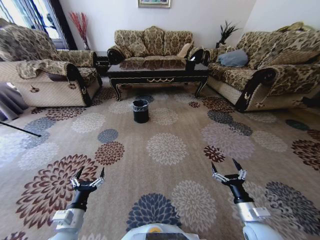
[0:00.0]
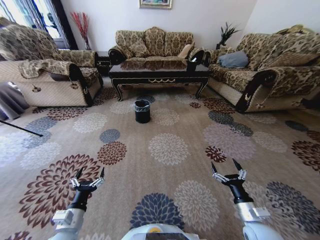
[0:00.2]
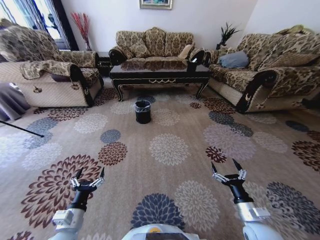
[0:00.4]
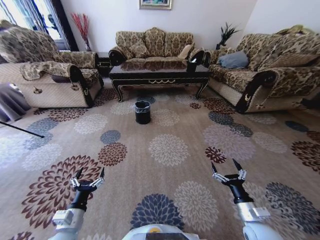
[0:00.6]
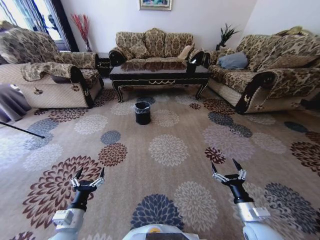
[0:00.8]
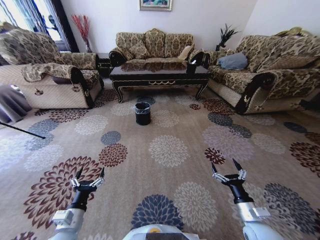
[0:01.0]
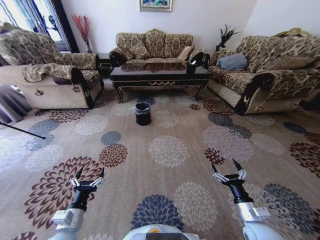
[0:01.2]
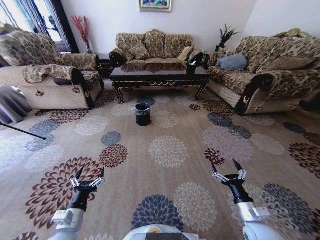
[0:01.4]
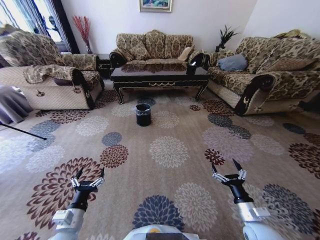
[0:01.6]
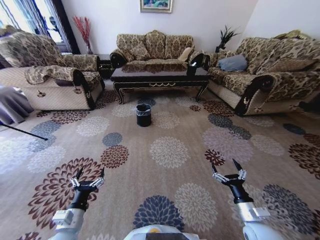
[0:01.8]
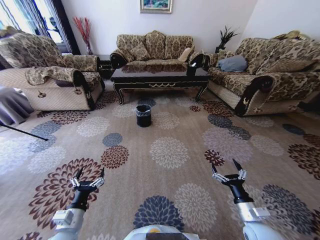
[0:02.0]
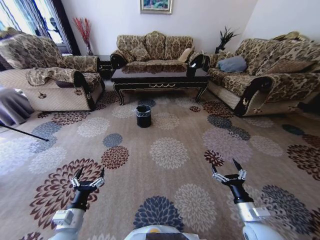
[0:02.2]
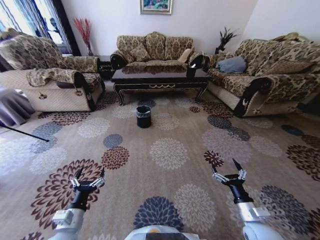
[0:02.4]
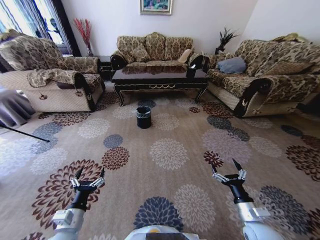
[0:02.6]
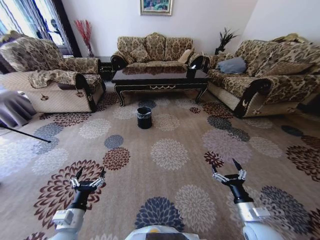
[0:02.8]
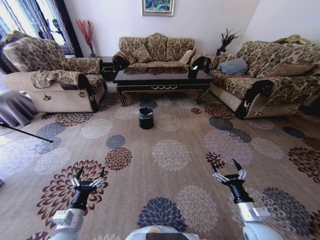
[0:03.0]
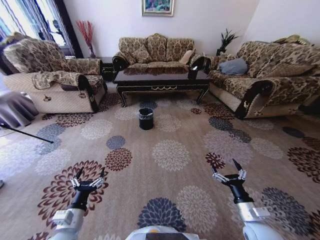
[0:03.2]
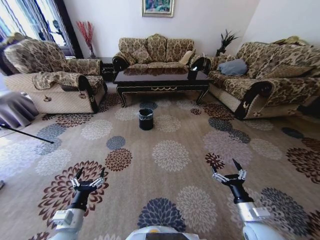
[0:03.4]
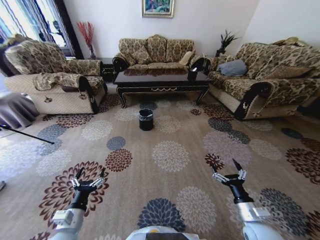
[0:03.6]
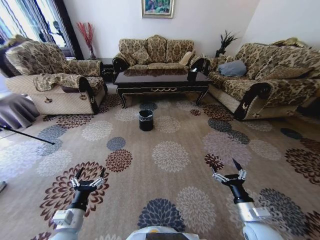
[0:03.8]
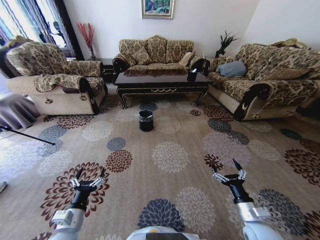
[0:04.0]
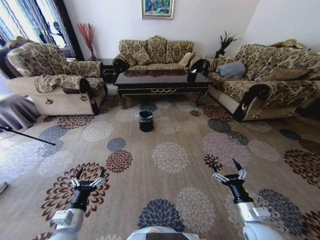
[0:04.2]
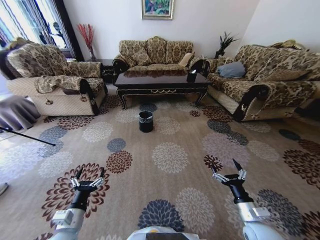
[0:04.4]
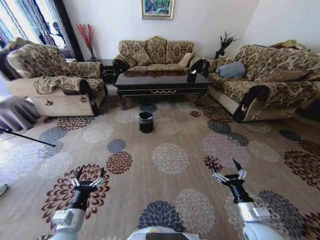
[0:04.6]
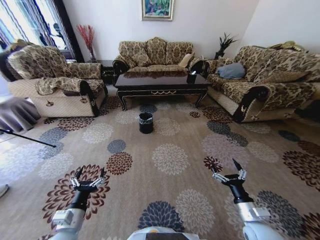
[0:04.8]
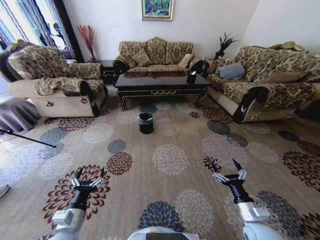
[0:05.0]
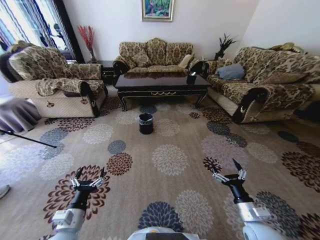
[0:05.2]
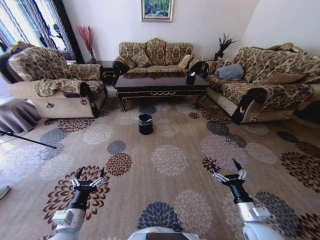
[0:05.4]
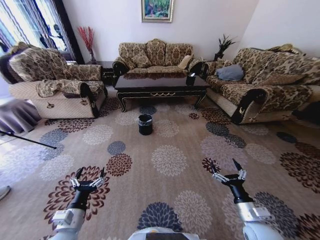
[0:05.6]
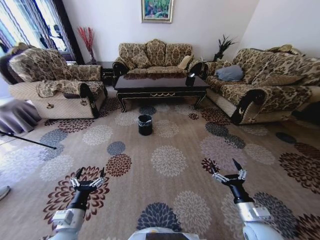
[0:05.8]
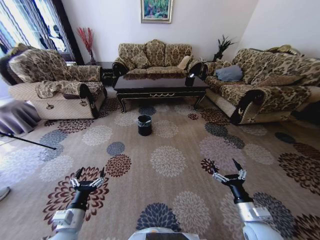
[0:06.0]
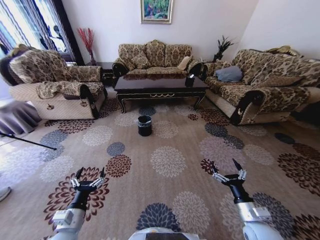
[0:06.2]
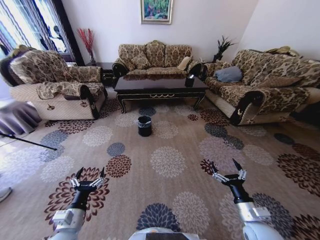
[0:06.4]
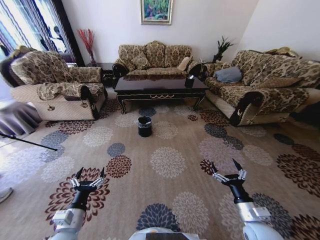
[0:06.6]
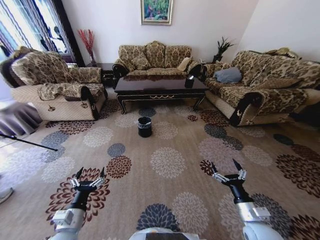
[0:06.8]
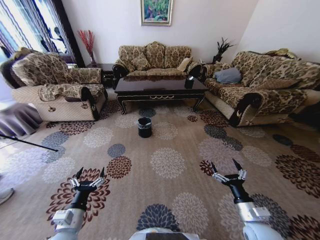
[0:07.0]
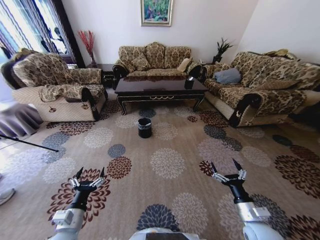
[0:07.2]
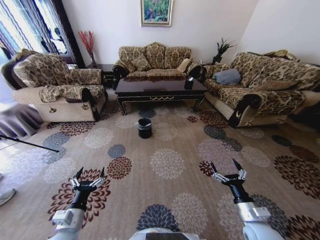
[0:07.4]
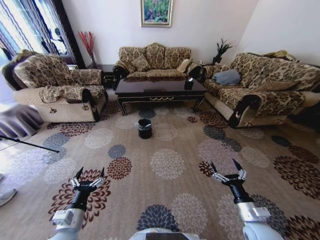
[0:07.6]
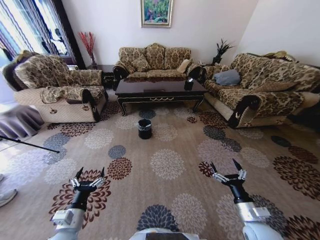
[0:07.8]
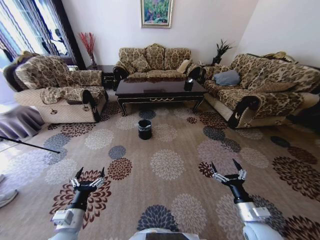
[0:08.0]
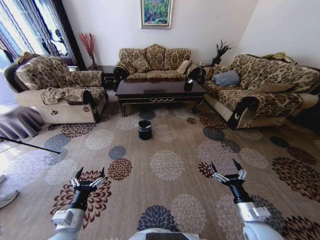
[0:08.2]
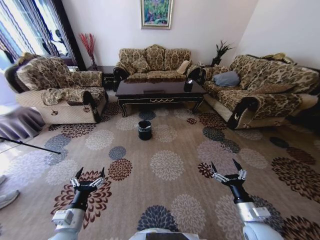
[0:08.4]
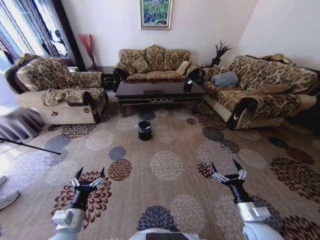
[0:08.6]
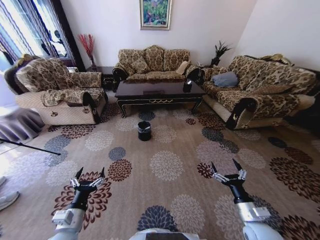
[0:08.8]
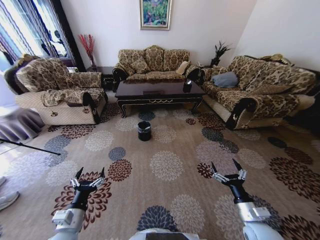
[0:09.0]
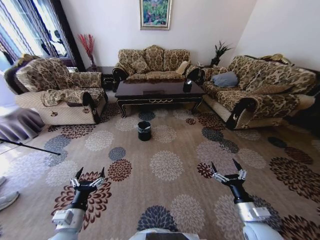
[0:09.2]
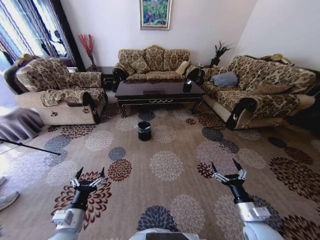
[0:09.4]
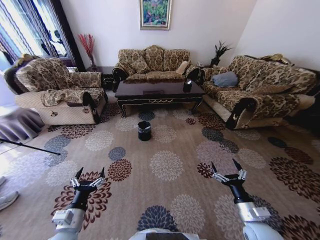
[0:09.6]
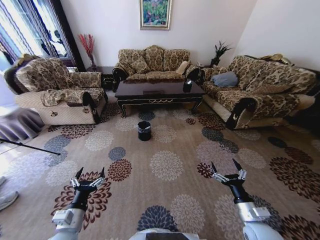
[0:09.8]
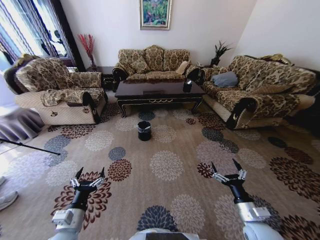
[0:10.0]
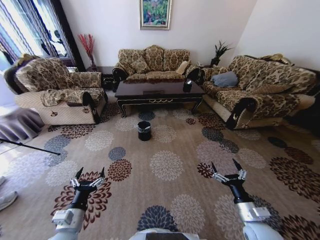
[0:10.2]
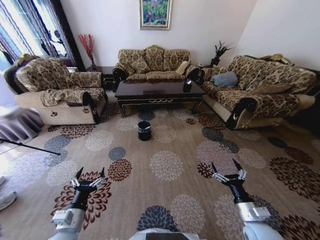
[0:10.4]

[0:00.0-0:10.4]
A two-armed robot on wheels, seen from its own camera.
Task of the whole recording: Move to the front of the table and pick up the trash from the floor, then place it into the trash bin.
0:09.0 to 0:10.4: Both grippers stay put.

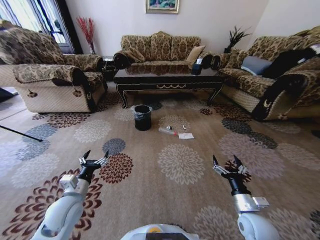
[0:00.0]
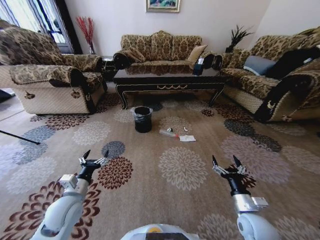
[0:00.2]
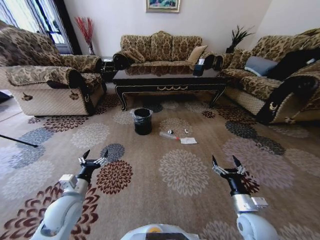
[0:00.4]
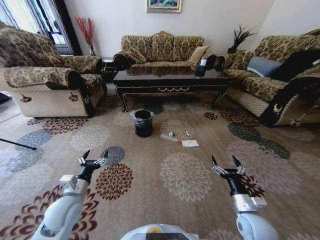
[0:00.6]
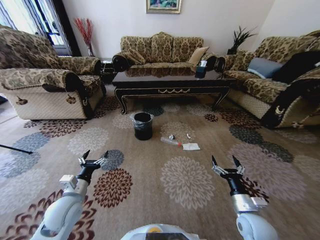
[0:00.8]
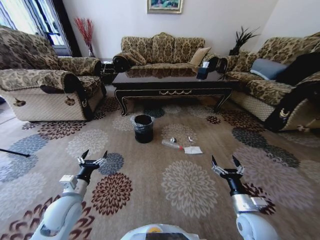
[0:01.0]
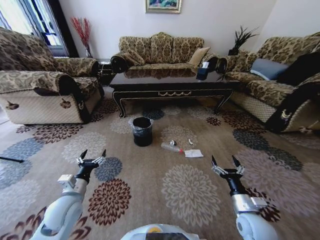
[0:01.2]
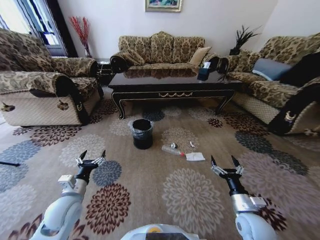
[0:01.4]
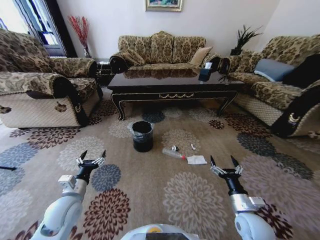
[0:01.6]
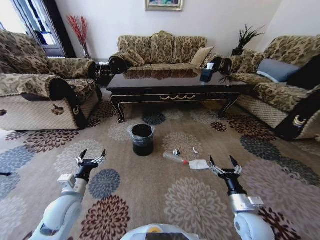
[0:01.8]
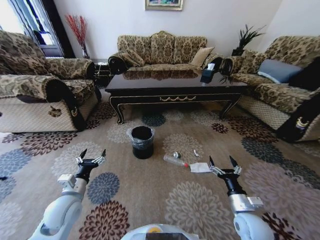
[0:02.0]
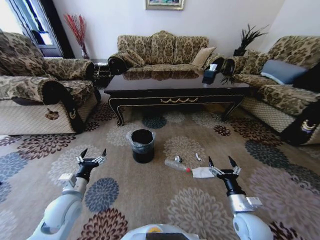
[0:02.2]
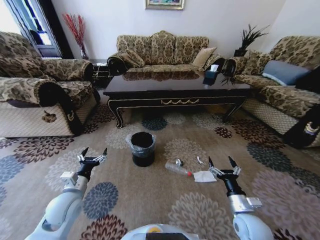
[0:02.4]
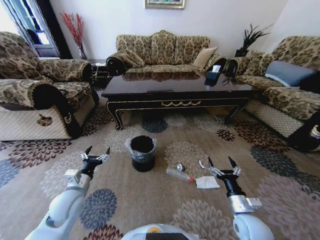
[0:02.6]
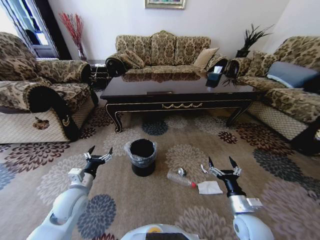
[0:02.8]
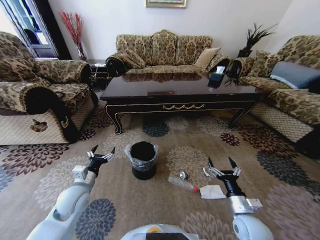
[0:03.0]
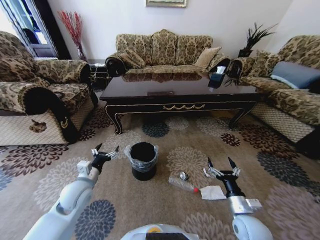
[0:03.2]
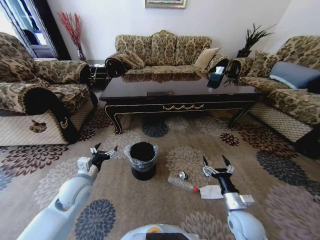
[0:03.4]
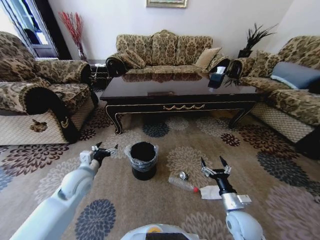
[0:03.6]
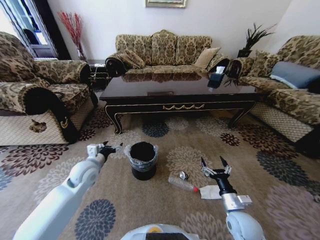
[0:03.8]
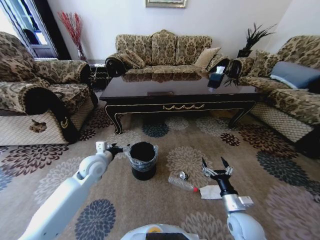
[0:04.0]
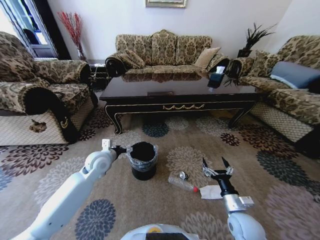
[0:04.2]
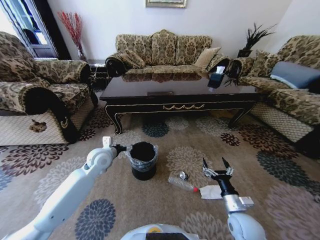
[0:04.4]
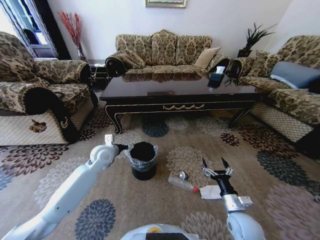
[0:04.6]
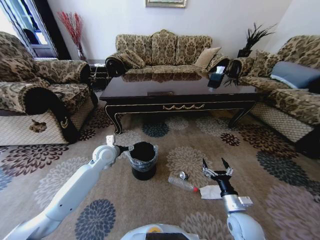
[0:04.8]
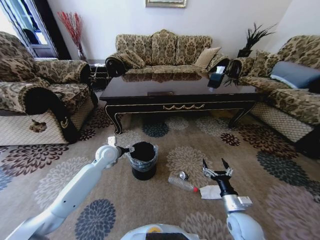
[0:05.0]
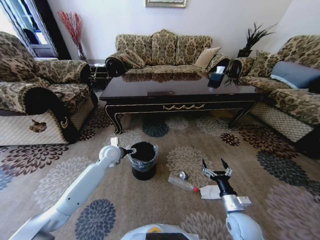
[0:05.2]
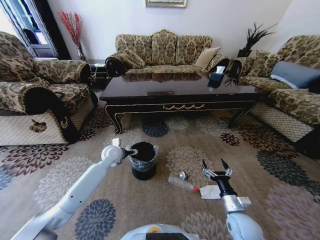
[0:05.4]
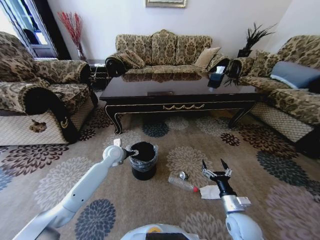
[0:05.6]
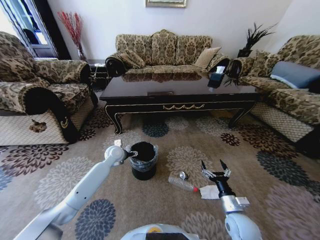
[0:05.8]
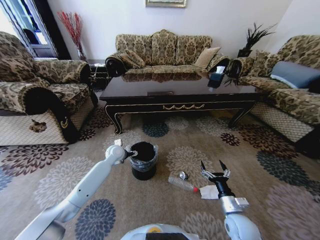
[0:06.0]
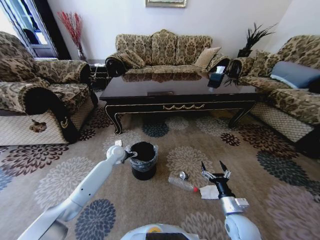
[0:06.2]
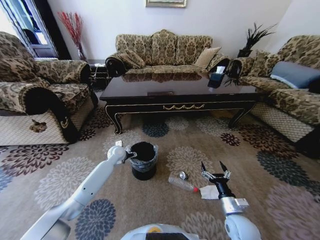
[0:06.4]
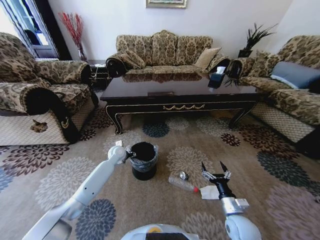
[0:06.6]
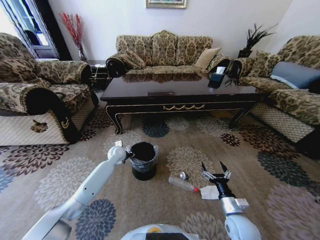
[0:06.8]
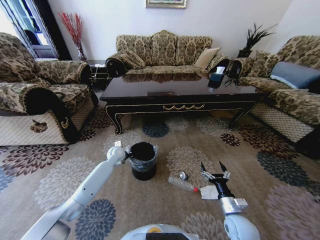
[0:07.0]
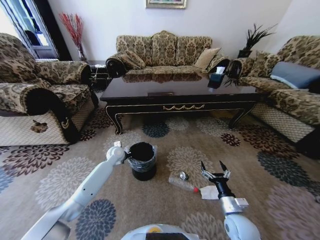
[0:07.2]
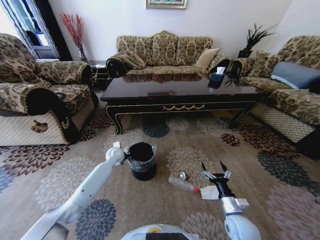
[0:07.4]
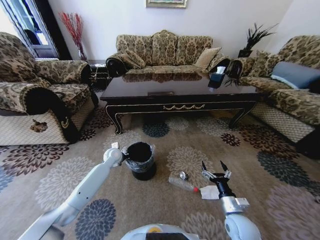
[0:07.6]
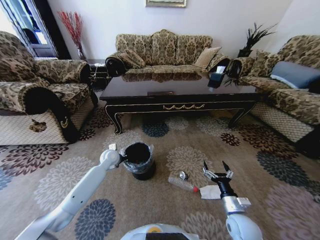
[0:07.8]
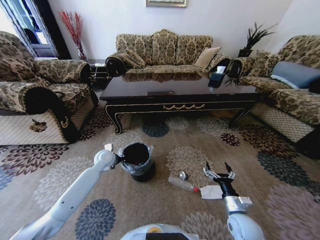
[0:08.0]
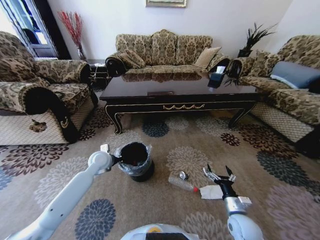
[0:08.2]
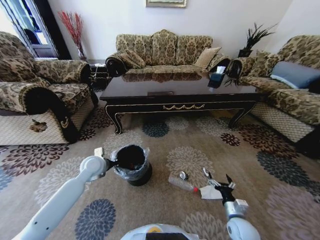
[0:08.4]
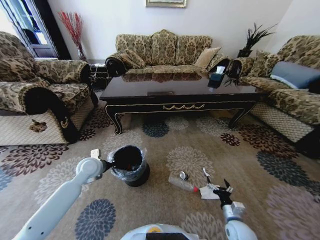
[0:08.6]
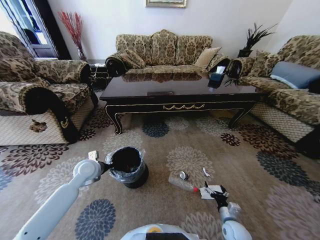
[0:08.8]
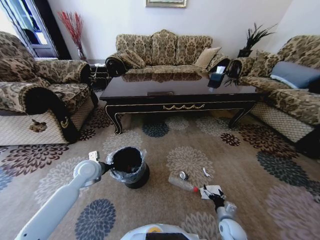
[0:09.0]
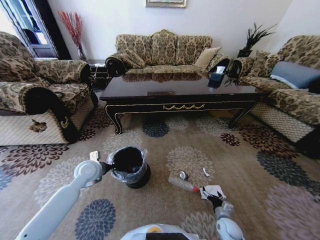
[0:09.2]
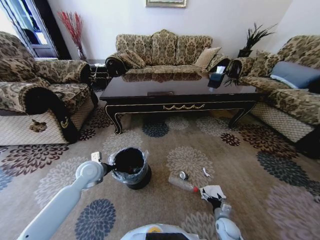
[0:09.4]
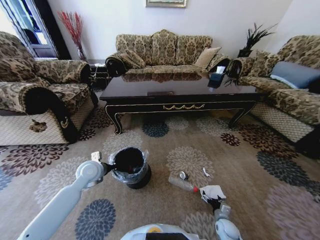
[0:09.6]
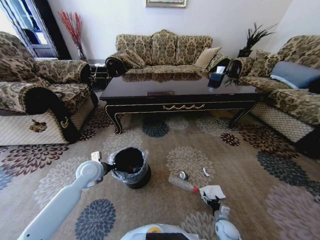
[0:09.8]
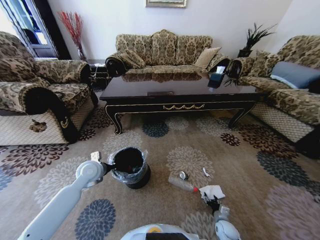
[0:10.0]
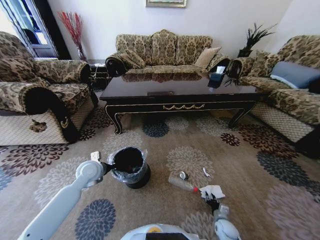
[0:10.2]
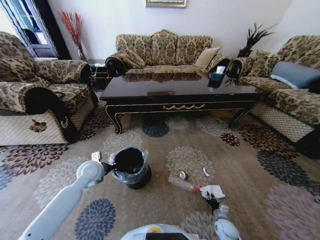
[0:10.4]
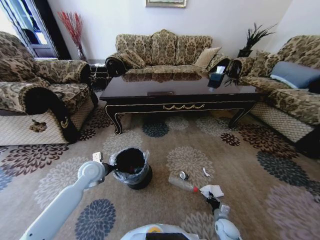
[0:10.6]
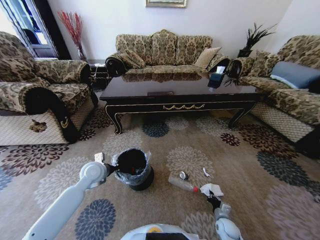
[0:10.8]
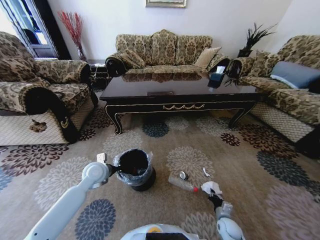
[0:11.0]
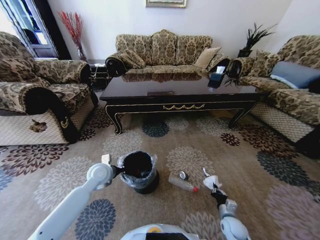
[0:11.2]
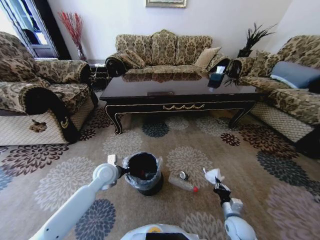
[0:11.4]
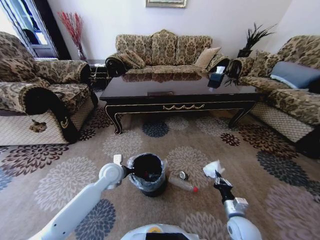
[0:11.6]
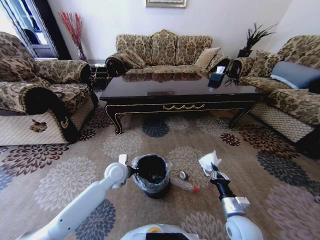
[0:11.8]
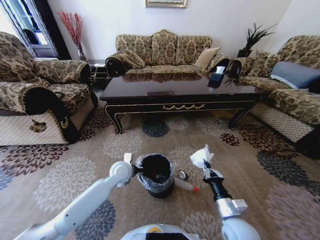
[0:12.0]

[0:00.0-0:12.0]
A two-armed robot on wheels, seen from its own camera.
Task of the whole recording: Move to the front of the table and pick up the trash from the floor, then place it into the trash bin.
0:03.0 to 0:04.4: The left gripper moves forward and to the right, roughly 15 cm.
0:04.4 to 0:06.0: The left gripper is displaced forward and downward by some 10 cm.
0:06.0 to 0:07.6: The left gripper closes.
0:07.6 to 0:09.0: The right gripper goes approximately 15 cm downward, while the left gripper shifts some 15 cm backward, to the left and upward.
0:09.0 to 0:10.4: The right gripper moves downward, some 5 cm, and closes its fingers.
0:10.4 to 0:12.0: The right gripper is displaced upward by about 25 cm. Meanwhile the left gripper heads to the right, covering some 15 cm.
